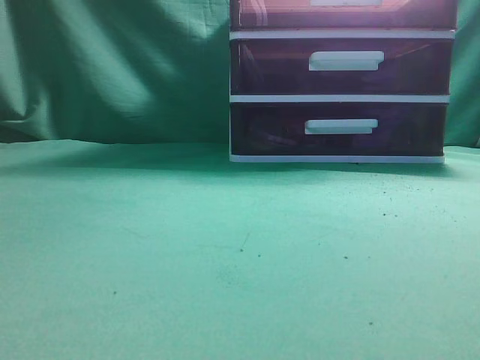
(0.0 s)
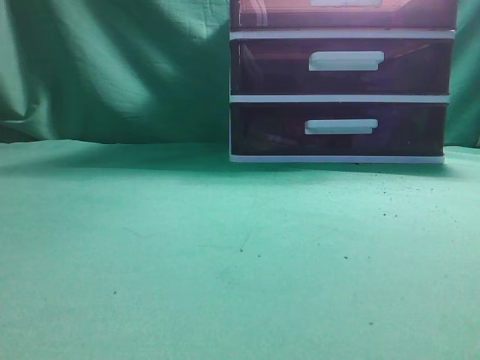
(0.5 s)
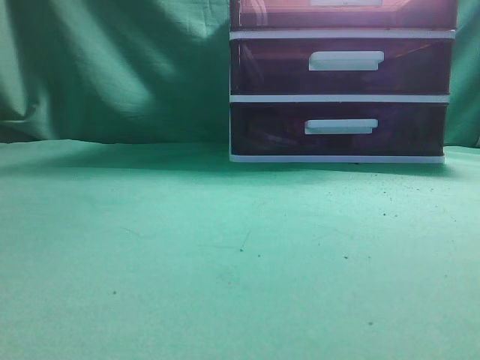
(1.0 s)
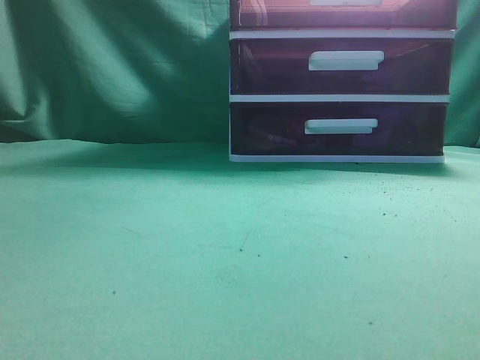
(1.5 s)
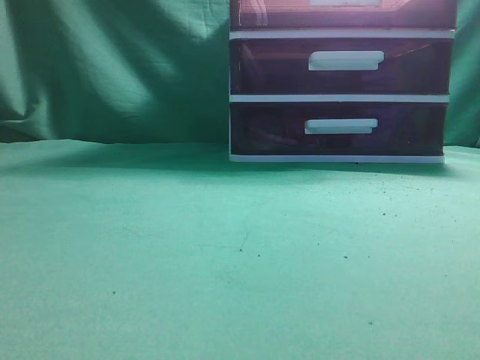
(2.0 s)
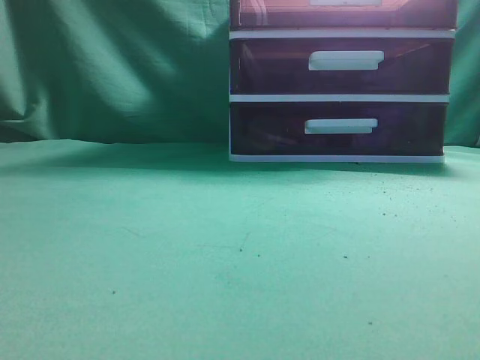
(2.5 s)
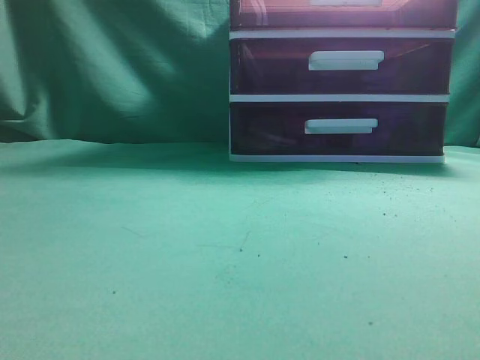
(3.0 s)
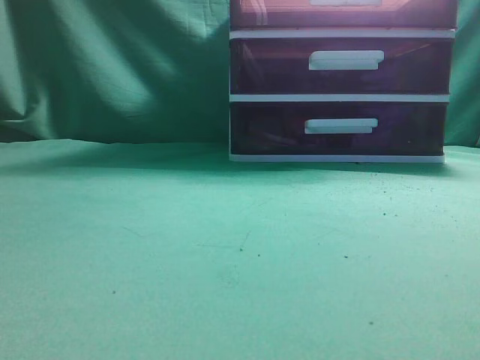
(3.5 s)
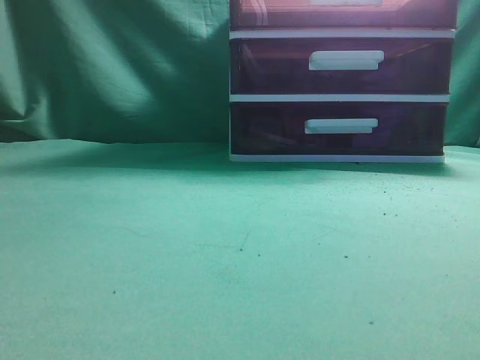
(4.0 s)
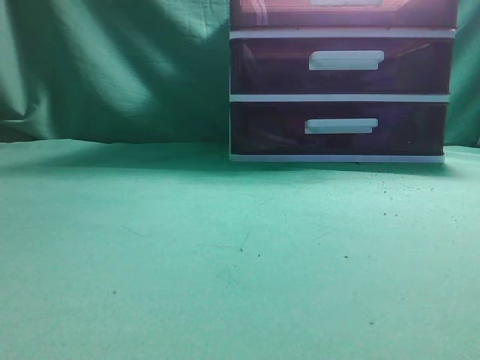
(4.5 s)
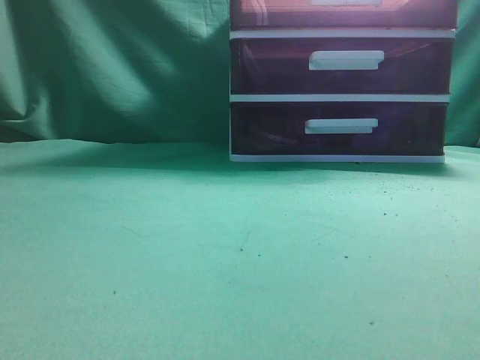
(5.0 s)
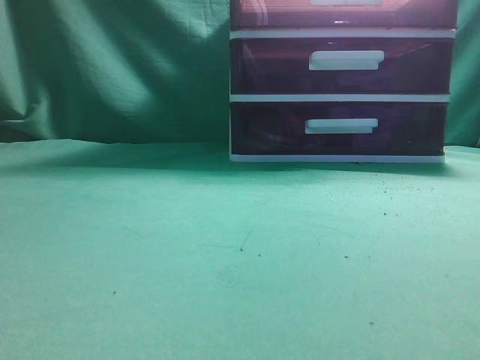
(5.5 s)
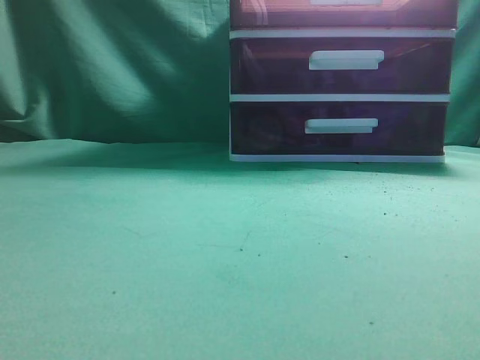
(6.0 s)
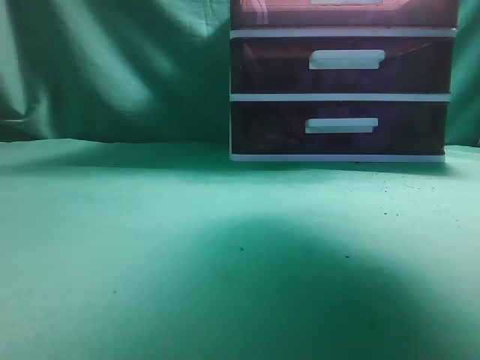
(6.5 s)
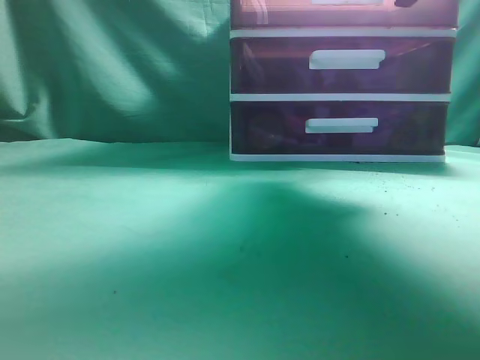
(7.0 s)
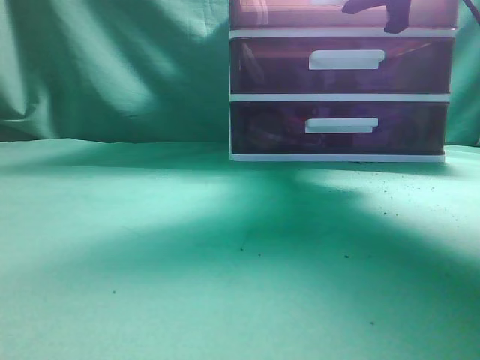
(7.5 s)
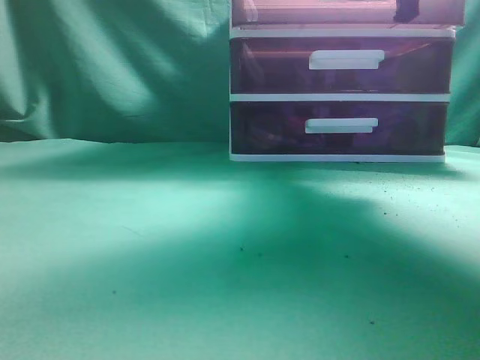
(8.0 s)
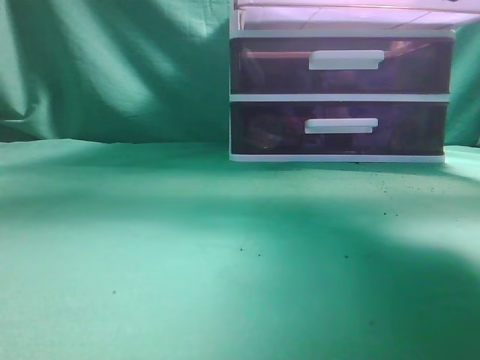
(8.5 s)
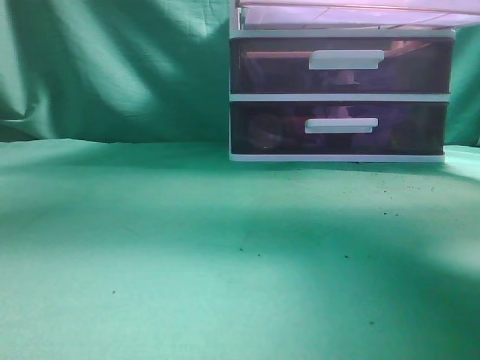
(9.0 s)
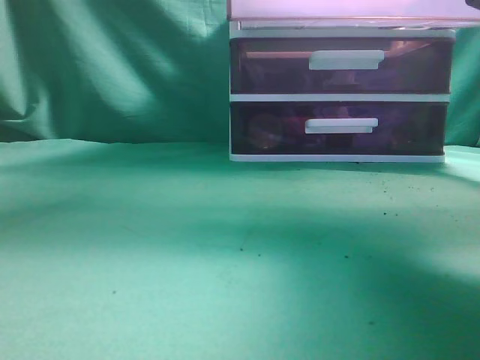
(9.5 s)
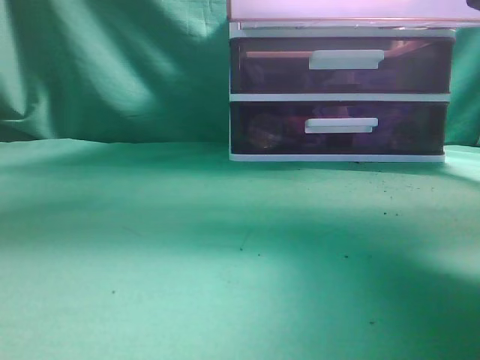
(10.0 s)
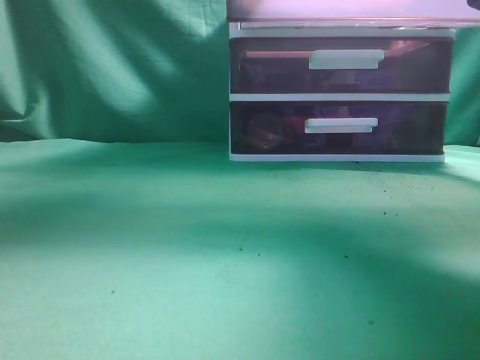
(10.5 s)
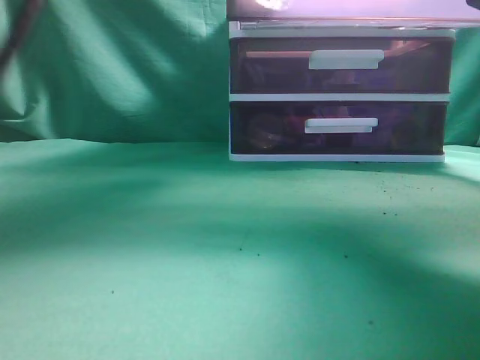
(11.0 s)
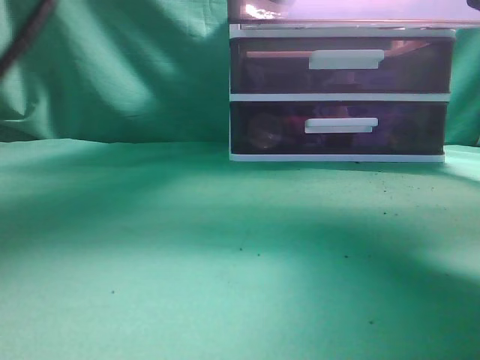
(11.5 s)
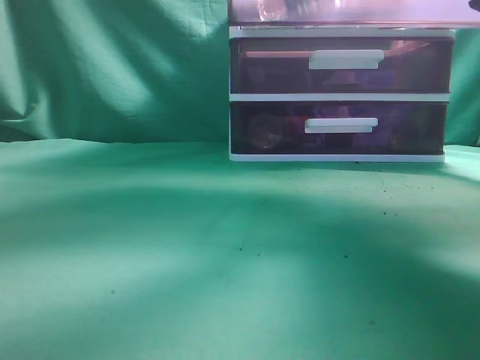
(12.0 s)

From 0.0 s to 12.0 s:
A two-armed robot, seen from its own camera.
Task of the whole recording: place the water bottle into the drawer.
Step, from 0.0 s to 8.5 s: Open the drawer.
From 6.0 s to 8.0 s: The right gripper heads forward, covering approximately 25 cm, and opens, then closes once more.
From 8.0 s to 10.0 s: The left gripper travels upward, to the right and forward by approximately 15 cm, while the right gripper travels backward by approximately 15 cm.
From 10.0 s to 12.0 s: The left gripper moves to the right, downward and forward, about 20 cm.

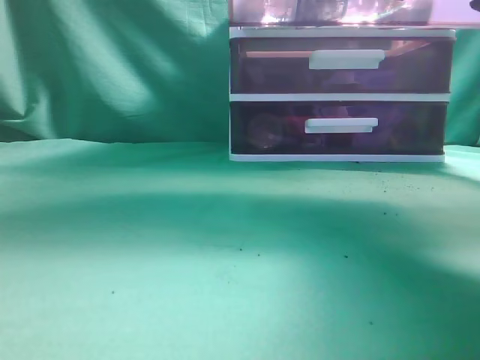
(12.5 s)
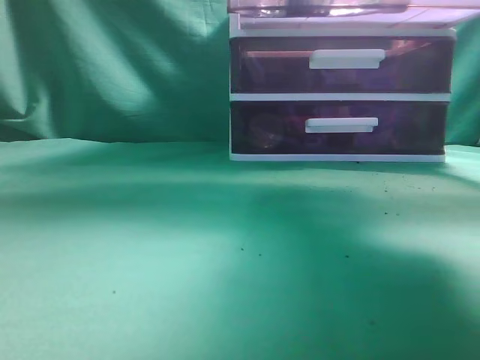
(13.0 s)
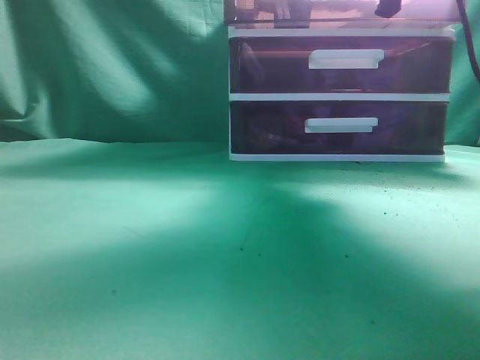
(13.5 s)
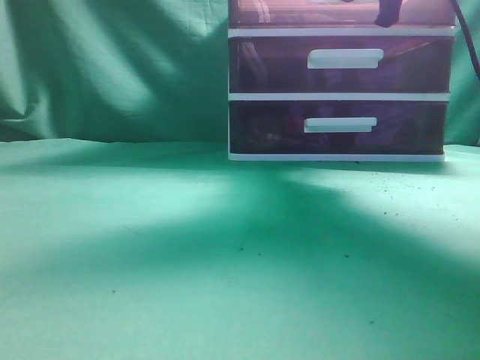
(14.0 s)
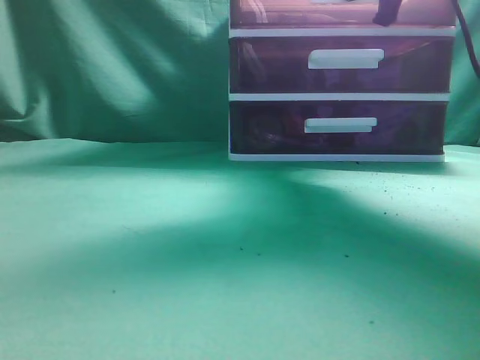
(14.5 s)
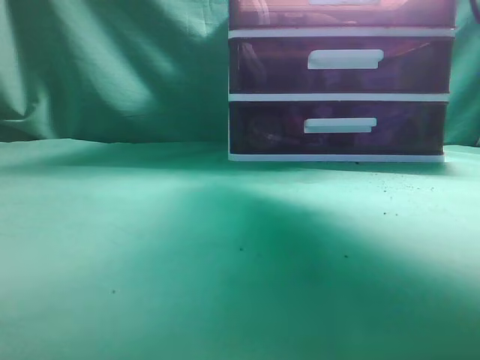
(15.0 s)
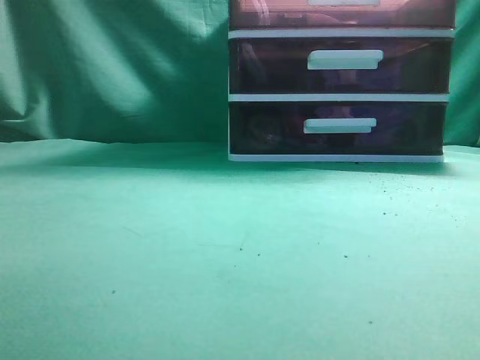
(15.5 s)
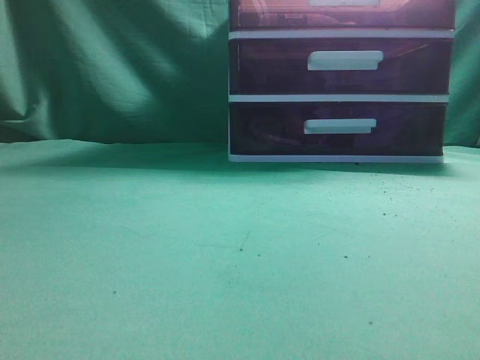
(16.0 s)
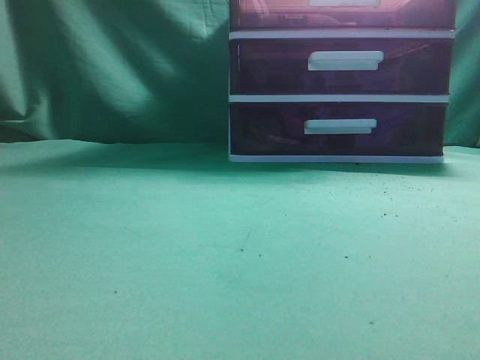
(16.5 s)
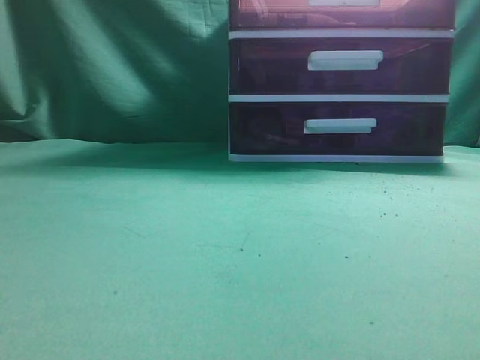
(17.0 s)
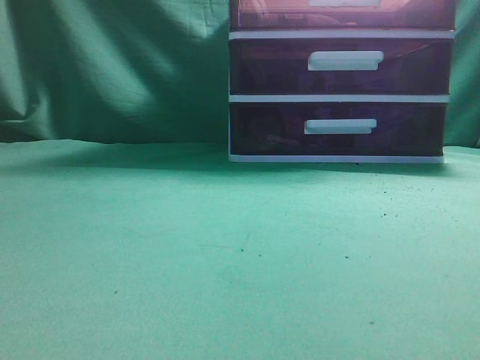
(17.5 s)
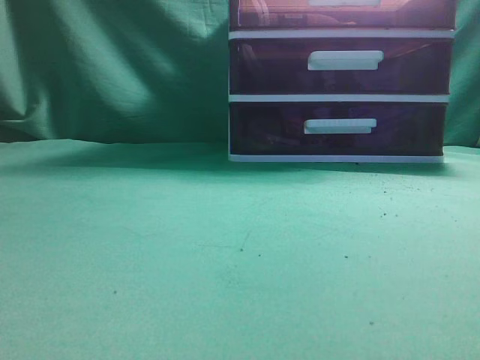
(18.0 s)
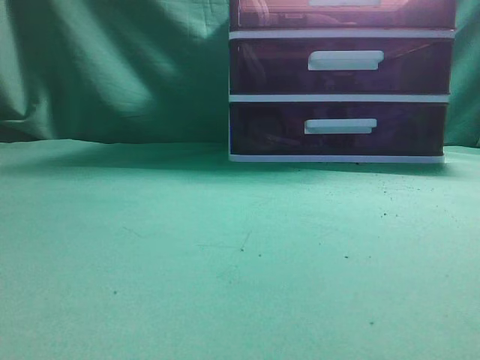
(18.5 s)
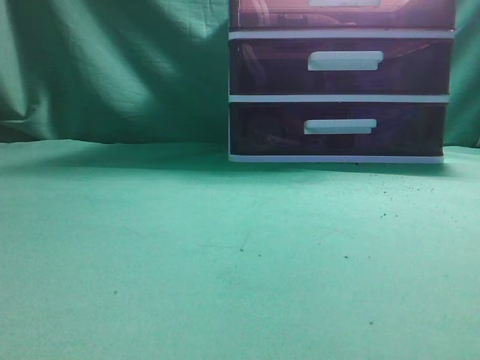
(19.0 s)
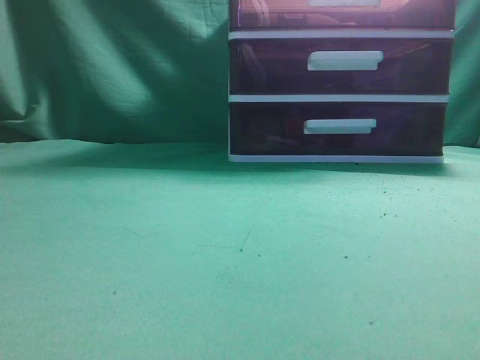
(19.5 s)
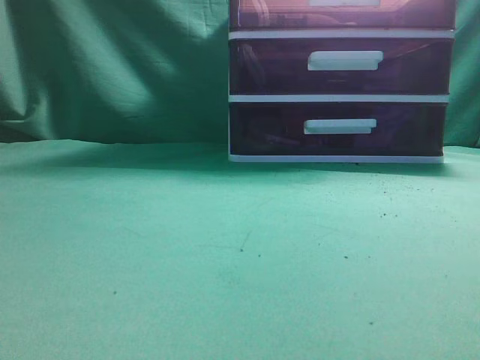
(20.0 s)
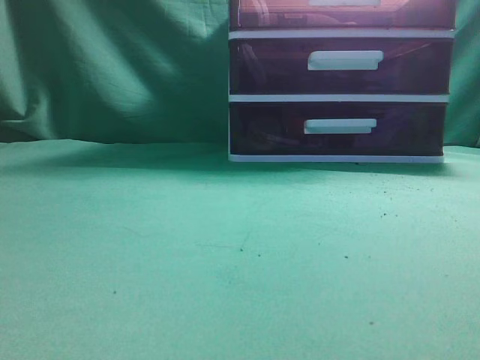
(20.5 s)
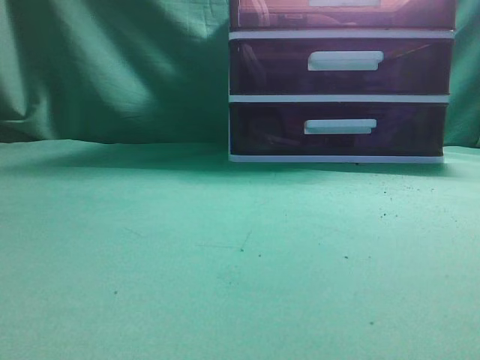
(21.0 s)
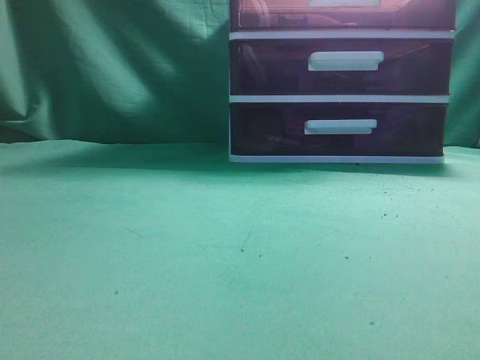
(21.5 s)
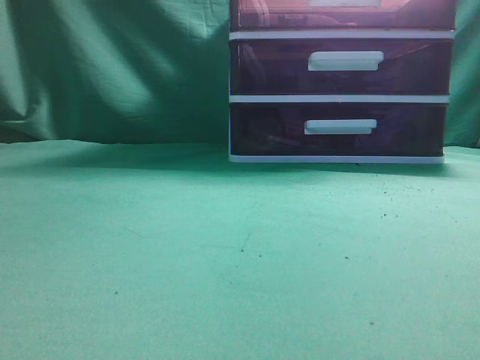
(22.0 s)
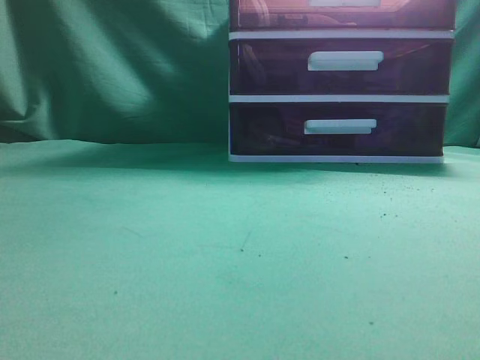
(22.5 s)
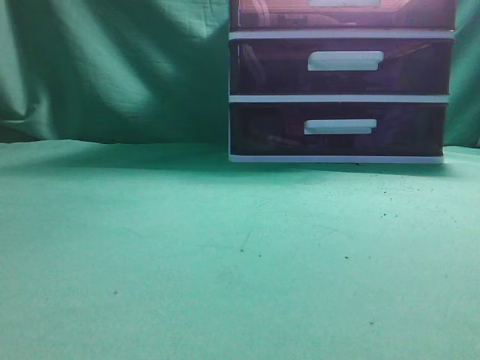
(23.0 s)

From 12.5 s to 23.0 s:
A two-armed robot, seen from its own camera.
Task of the whole recording: place the water bottle into the drawer.
Step, from 13.0 s to 15.0 s: Close the drawer.
From 12.5 s to 14.5 s: The right gripper shifts some 15 cm forward. Meanwhile the left gripper moves to the left and upward, approximately 15 cm, and closes.
From 14.5 s to 16.5 s: The left gripper heads backward, to the left and downward, covering roughly 30 cm, while the right gripper shifts approximately 30 cm backward and upward, and closes its fingers.
